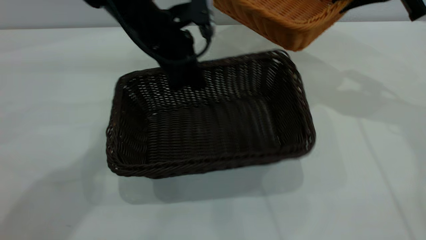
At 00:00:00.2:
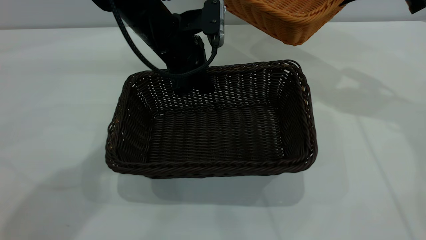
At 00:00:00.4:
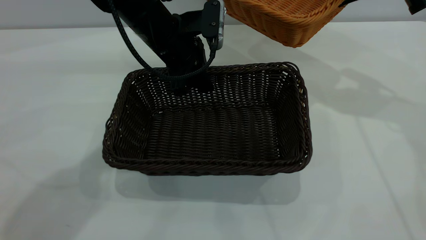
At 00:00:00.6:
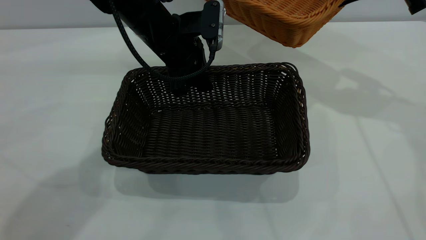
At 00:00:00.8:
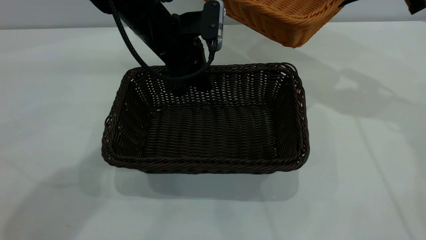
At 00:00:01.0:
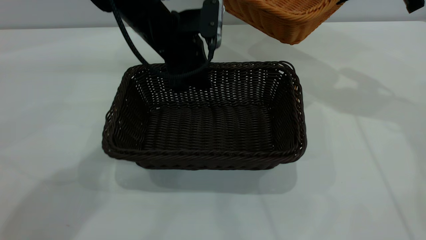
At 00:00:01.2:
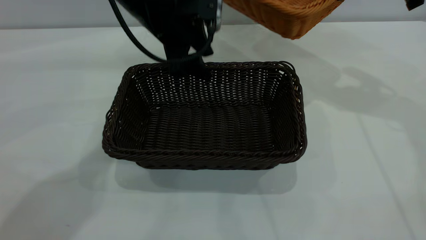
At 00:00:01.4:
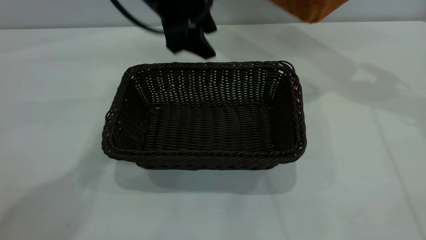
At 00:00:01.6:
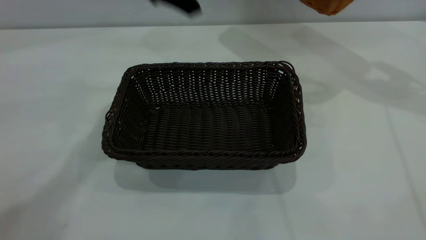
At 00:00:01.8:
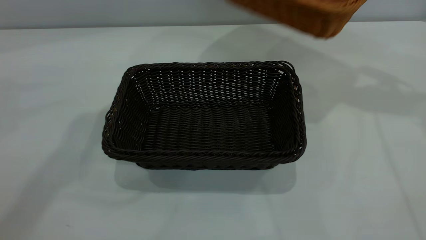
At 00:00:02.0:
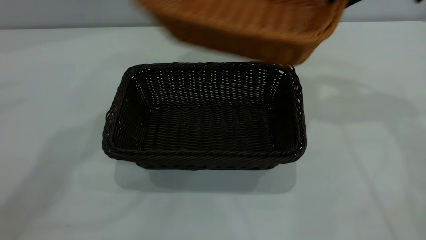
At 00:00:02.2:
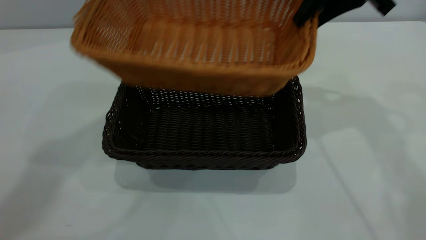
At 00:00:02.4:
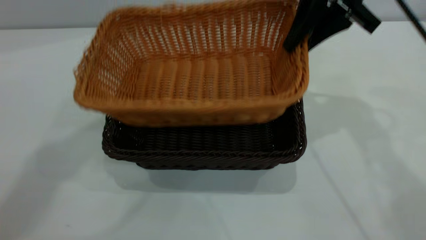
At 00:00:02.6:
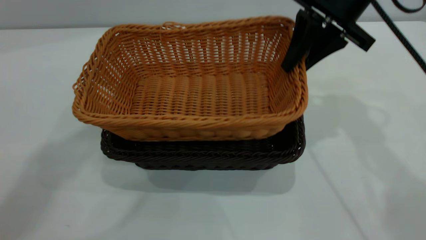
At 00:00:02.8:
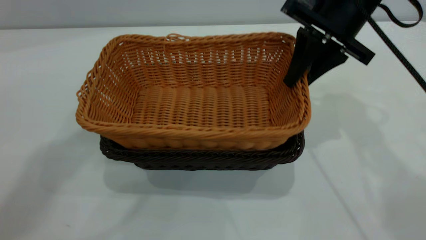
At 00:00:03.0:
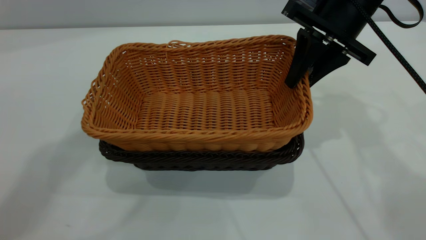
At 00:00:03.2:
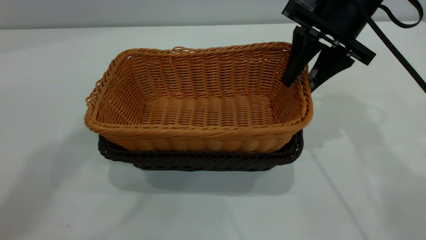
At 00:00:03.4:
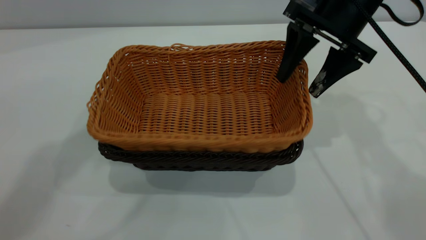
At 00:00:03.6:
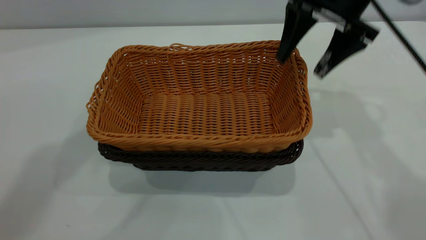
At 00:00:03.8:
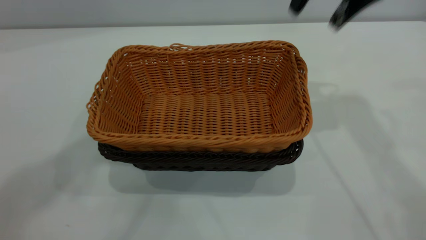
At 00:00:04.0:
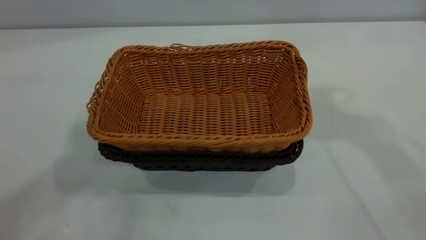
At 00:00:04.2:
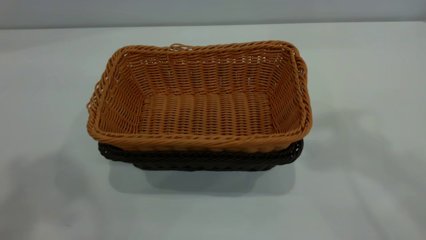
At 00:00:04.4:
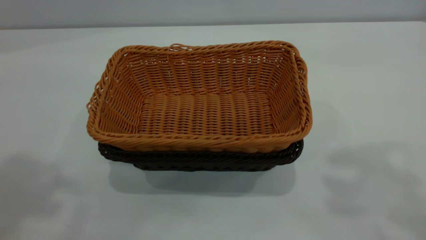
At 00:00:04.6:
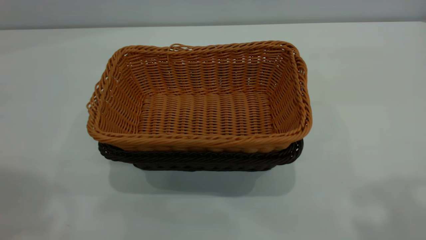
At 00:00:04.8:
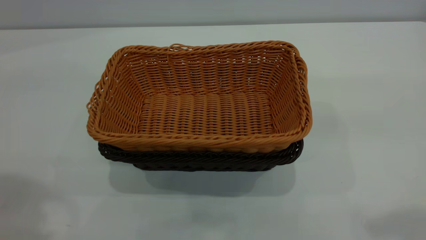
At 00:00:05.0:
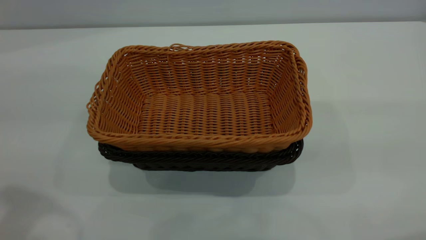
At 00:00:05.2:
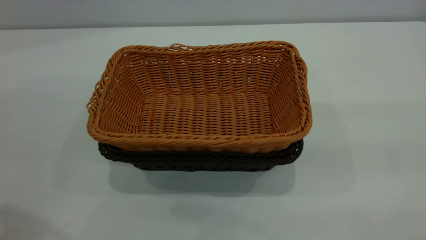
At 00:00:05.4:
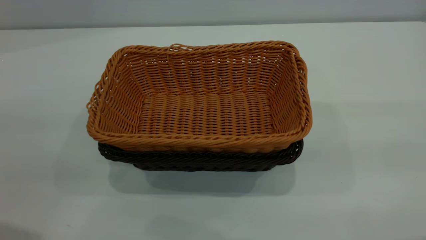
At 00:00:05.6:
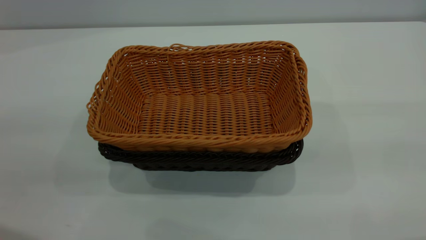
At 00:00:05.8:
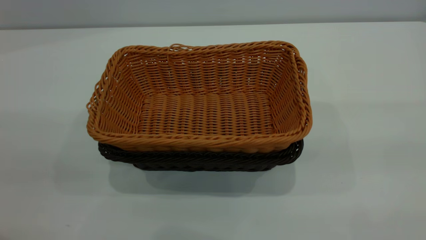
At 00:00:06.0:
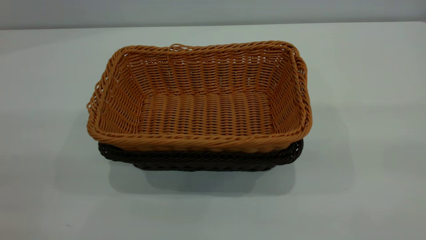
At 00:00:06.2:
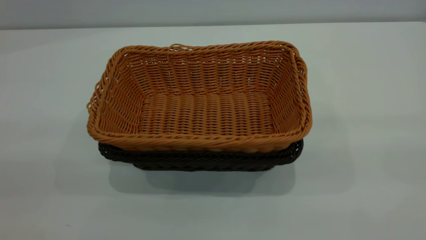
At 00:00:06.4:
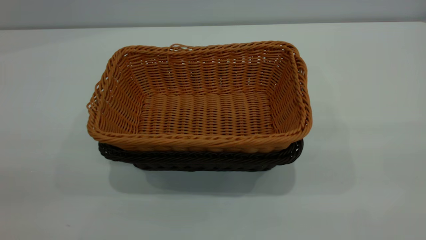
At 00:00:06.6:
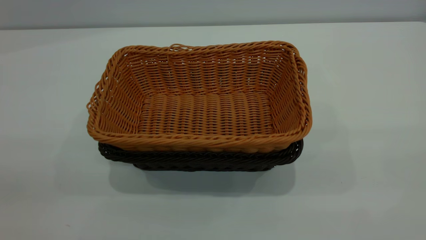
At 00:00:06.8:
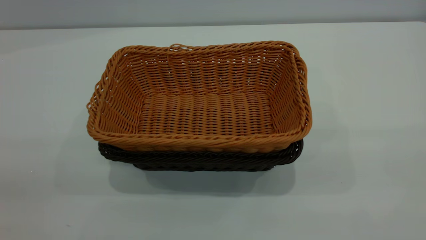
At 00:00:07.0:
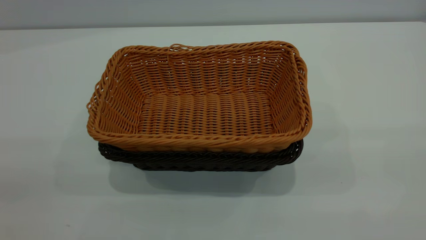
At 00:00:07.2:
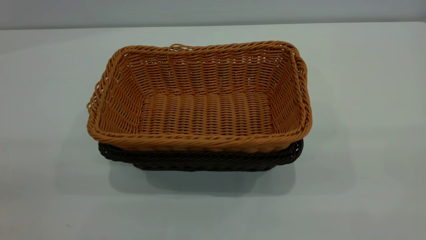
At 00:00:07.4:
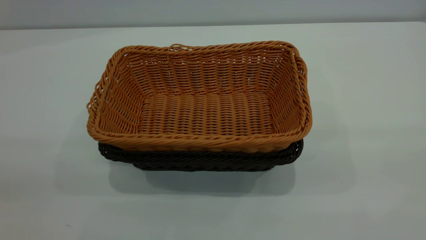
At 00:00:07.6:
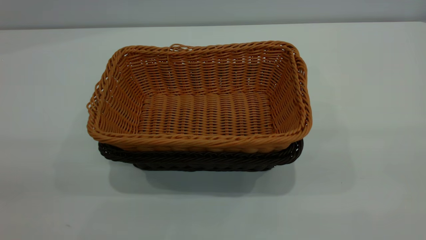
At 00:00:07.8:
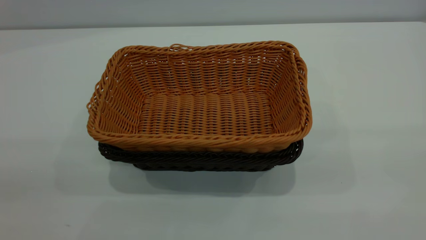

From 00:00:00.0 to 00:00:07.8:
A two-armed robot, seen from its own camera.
Task of the whole recording: the left gripper grasp the black basket and place it in the center of the table, the right gripper grasp the brown basket and place it inside the black one.
Step, from 00:00:00.0 to 00:00:01.2: Move the dark basket to the center of view.
Step, from 00:00:01.6 to 00:00:03.6: Place the light basket on the dark basket.
From 00:00:00.0 to 00:00:01.6: The left gripper shifts approximately 20 cm upward, and opens its fingers; the right gripper heads to the right, covering roughly 5 cm.
From 00:00:01.6 to 00:00:03.2: The right gripper shifts about 20 cm to the left and downward, and opens. Meanwhile the left gripper moves upward, about 20 cm.
From 00:00:03.2 to 00:00:04.6: The left gripper heads backward and to the left, covering roughly 20 cm. The right gripper shifts about 30 cm backward and upward, and opens.
